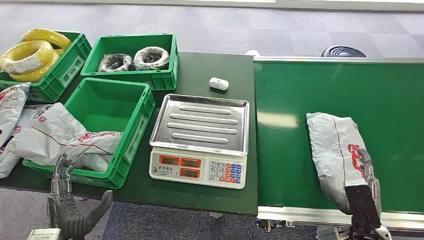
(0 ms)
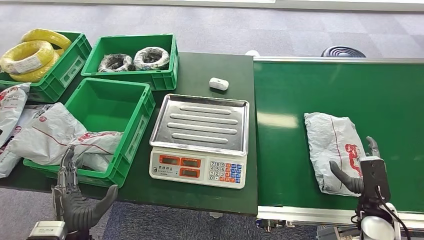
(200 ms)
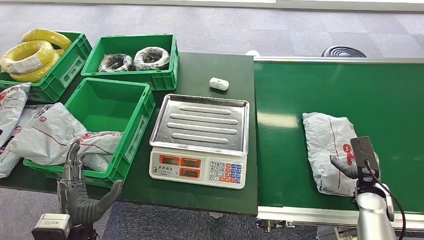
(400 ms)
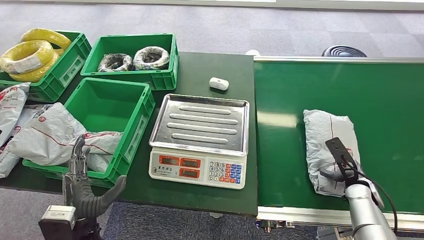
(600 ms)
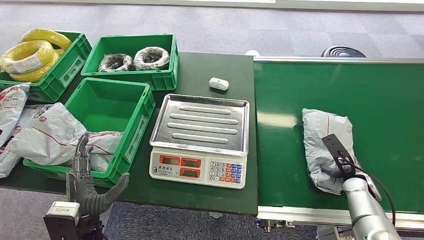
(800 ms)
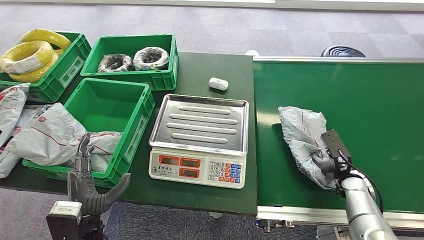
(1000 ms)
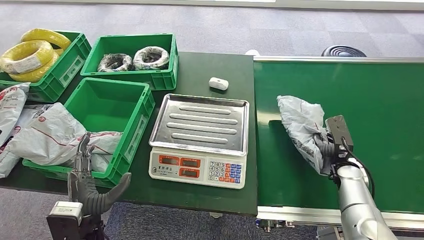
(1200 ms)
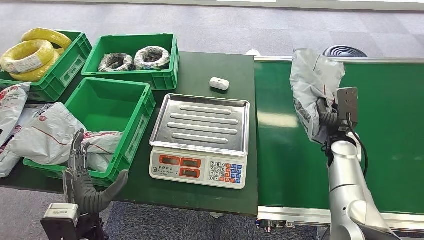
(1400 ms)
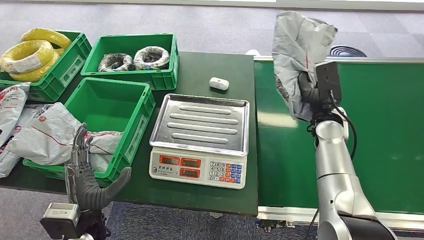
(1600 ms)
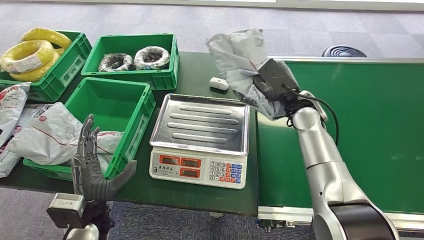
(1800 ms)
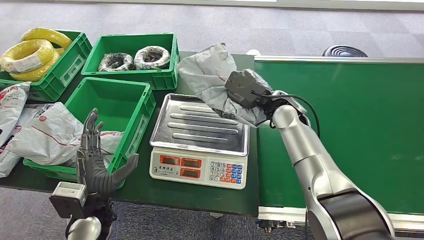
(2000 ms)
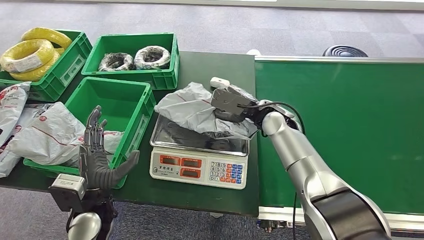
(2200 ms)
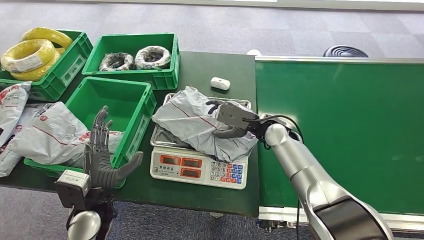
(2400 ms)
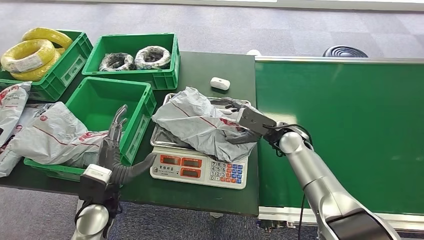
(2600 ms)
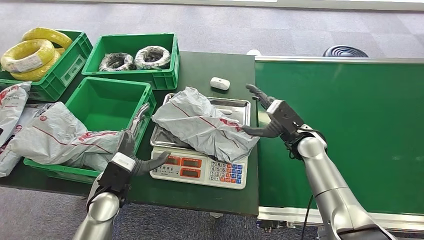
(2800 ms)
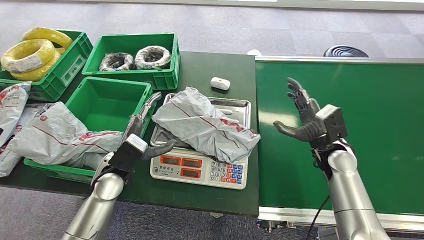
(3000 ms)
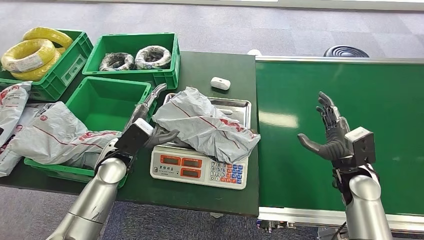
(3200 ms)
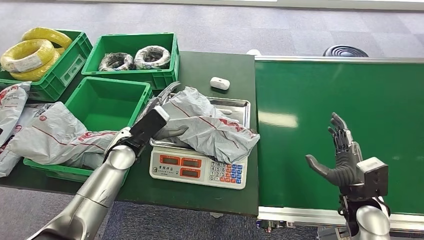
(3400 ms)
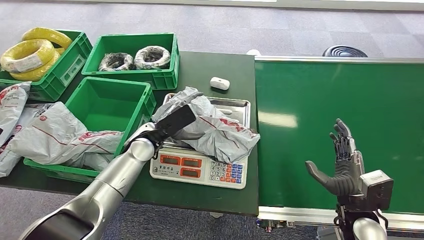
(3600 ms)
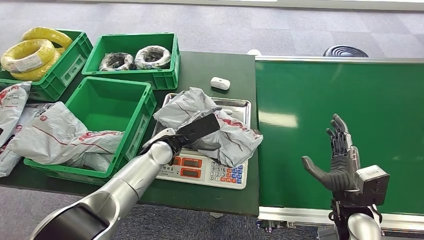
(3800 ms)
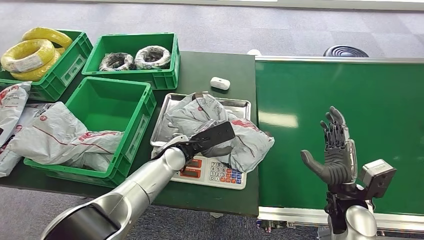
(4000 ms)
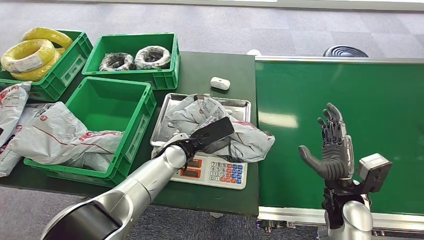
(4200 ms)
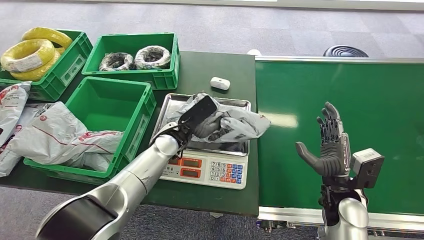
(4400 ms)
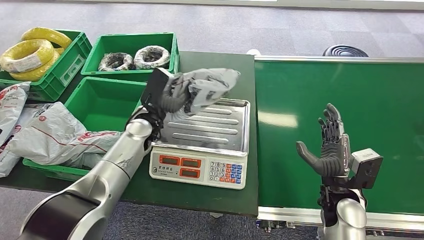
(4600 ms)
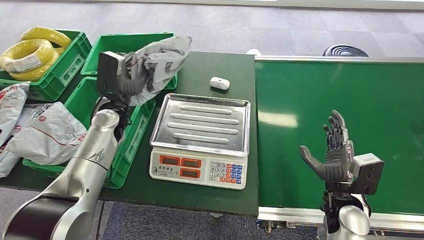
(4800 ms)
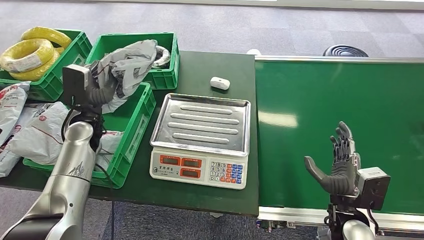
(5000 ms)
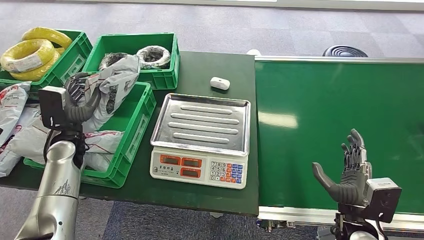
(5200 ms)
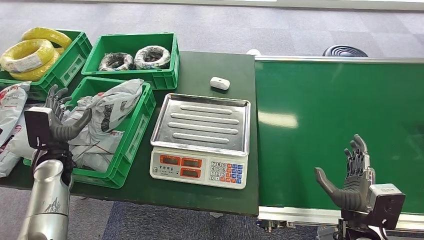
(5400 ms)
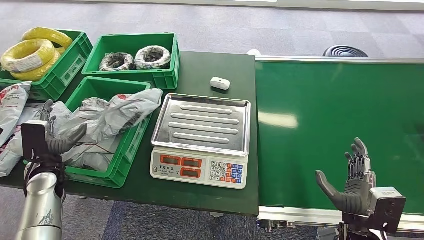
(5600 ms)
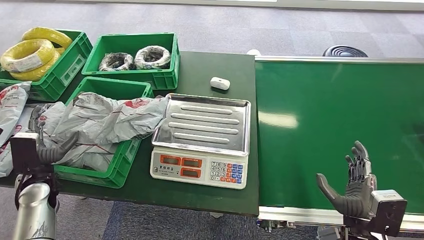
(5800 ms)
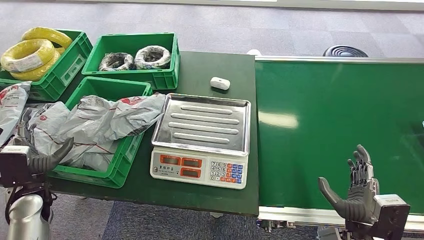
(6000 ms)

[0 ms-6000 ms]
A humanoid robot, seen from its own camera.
Step, 0 ms to 1200 ms: Pick up the package from the conveyor belt.
Step, 1400 ms to 2800 ms: Place the package onto the inbound machine.
Step, 3000 ms to 4800 ms: Pick up the package from the inbound machine.
Step, 5000 ms to 6000 ms: Place the package into the parcel locker.
3000 ms to 4400 ms: The right hand is displaced backward by roughly 10 cm, while the left hand moves to the right and forward, approximately 15 cm.

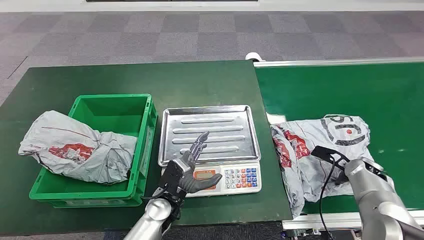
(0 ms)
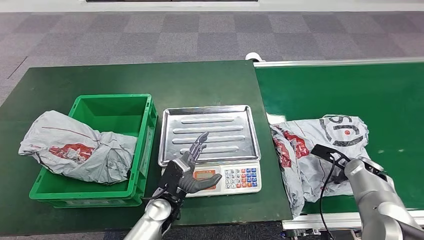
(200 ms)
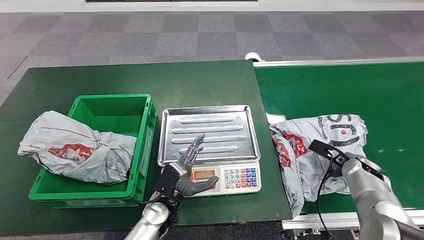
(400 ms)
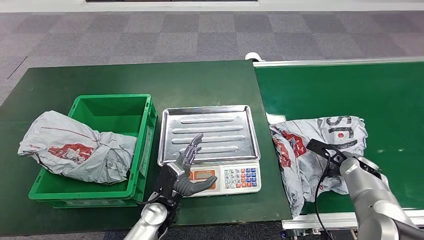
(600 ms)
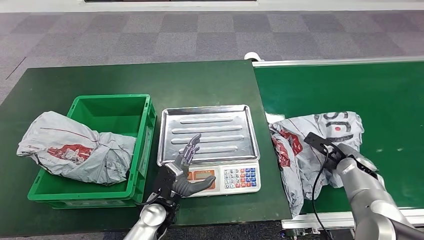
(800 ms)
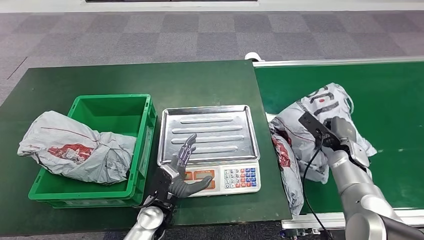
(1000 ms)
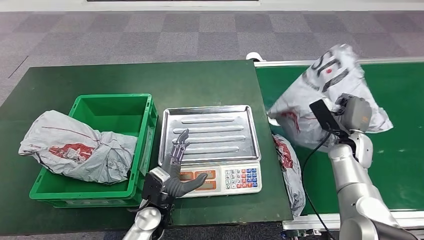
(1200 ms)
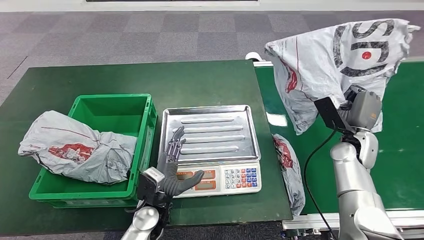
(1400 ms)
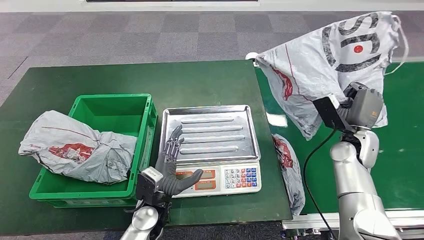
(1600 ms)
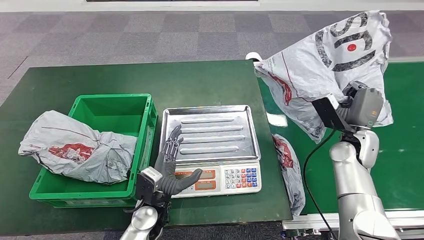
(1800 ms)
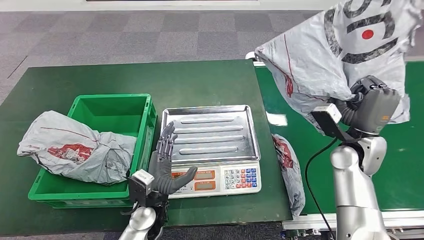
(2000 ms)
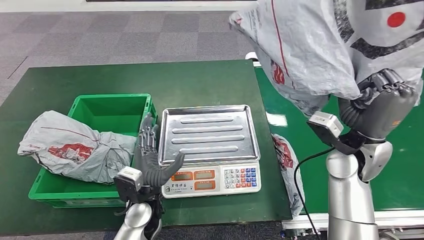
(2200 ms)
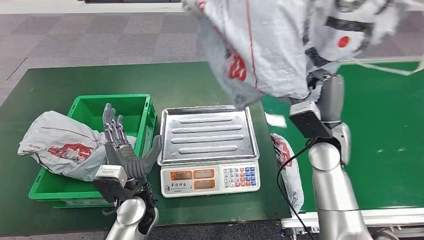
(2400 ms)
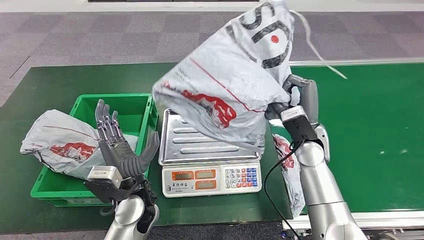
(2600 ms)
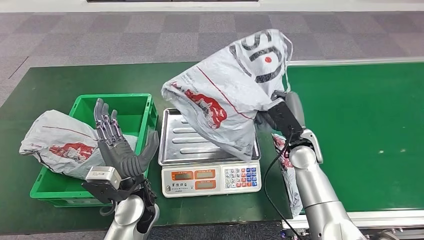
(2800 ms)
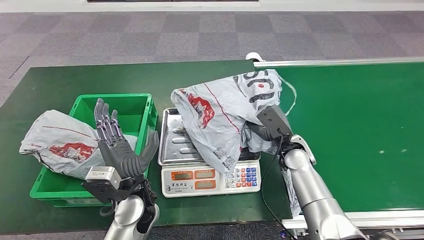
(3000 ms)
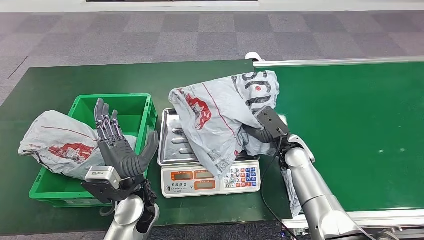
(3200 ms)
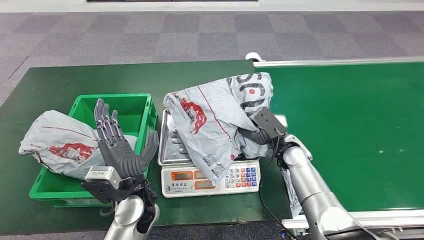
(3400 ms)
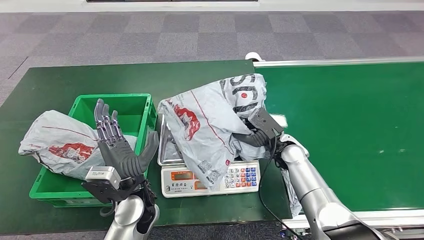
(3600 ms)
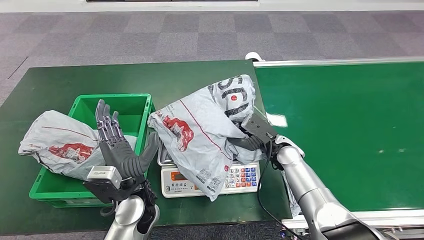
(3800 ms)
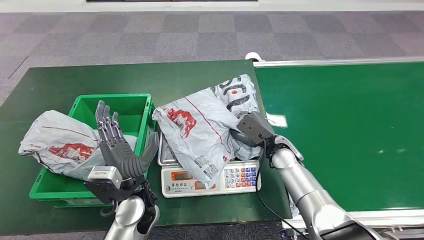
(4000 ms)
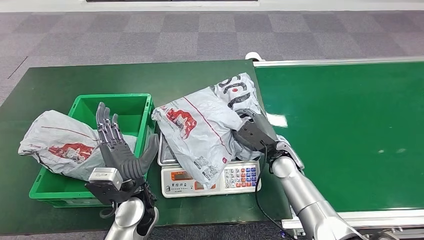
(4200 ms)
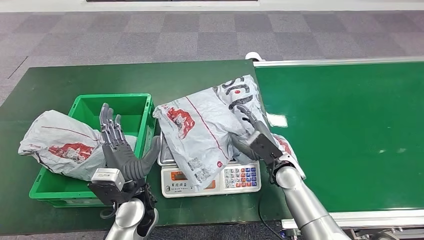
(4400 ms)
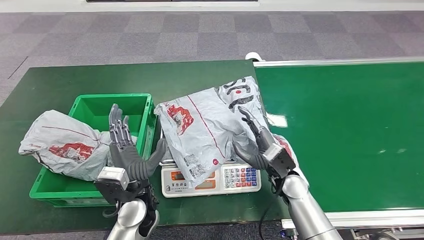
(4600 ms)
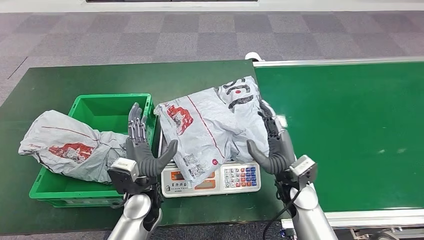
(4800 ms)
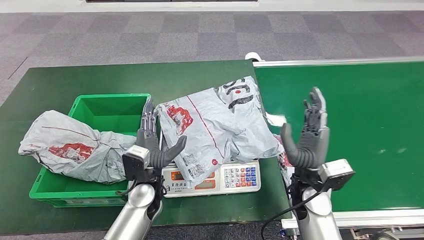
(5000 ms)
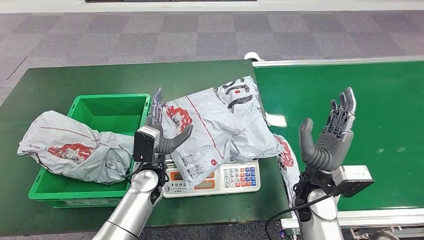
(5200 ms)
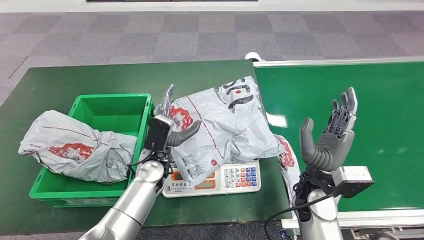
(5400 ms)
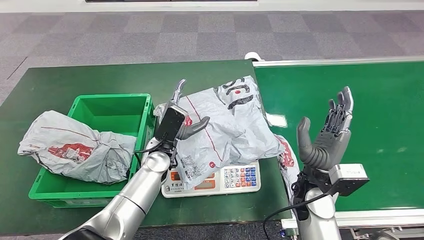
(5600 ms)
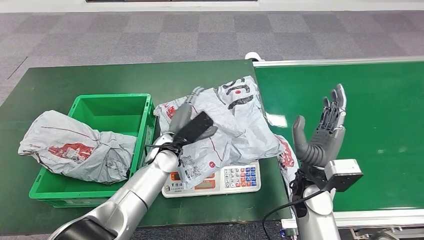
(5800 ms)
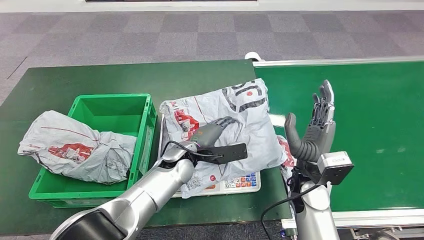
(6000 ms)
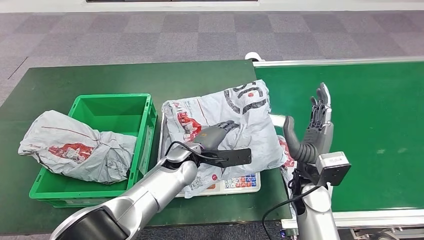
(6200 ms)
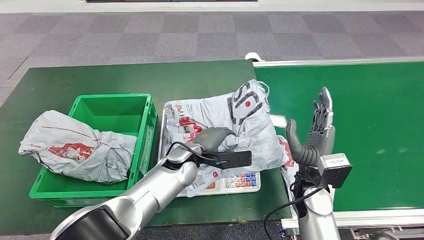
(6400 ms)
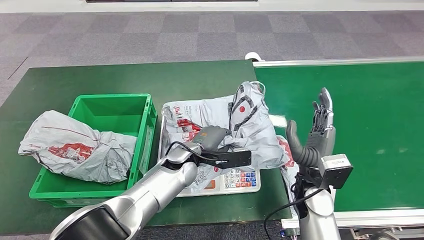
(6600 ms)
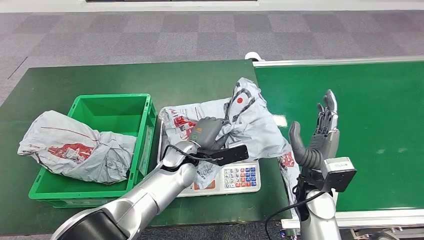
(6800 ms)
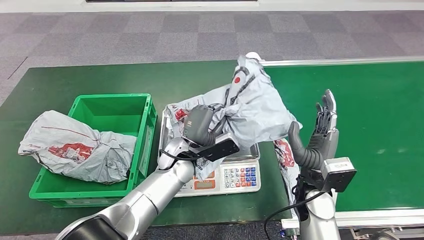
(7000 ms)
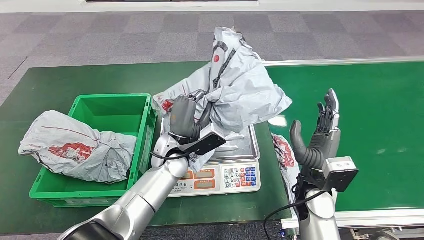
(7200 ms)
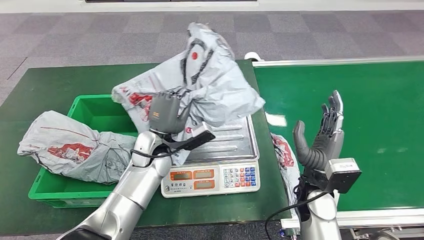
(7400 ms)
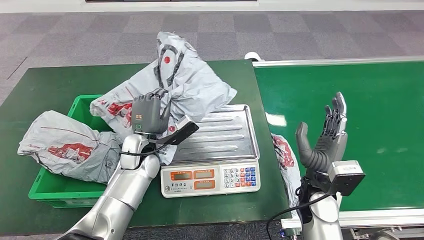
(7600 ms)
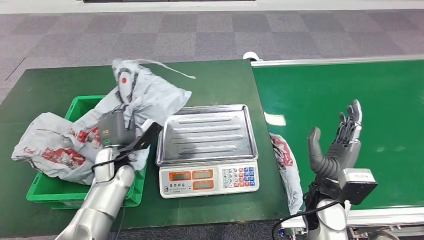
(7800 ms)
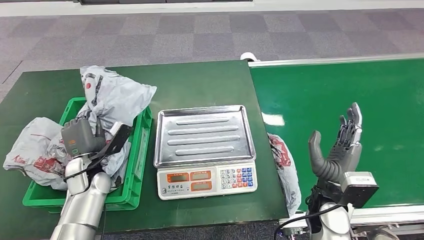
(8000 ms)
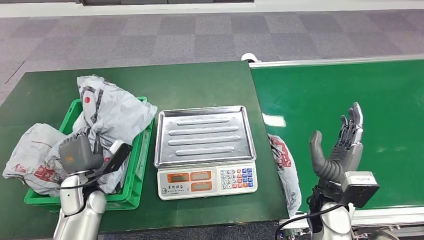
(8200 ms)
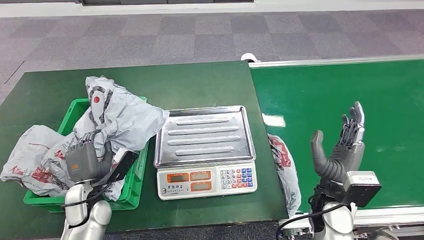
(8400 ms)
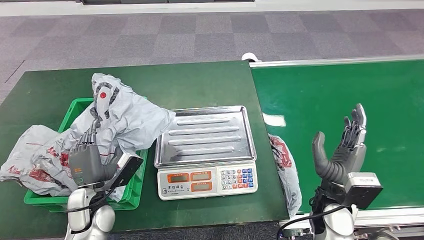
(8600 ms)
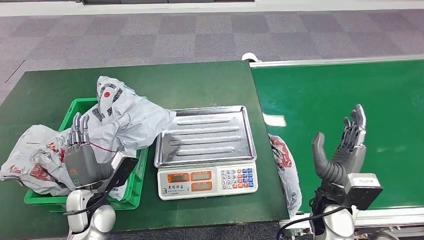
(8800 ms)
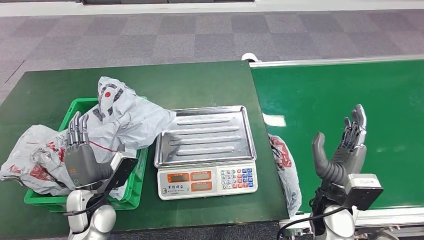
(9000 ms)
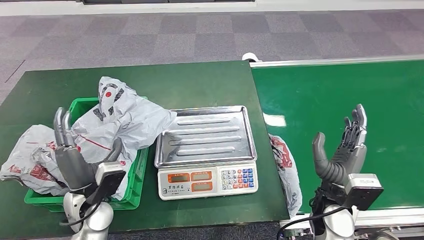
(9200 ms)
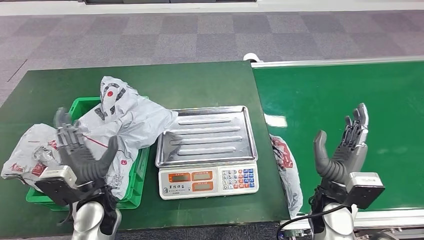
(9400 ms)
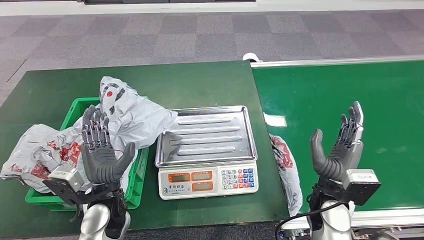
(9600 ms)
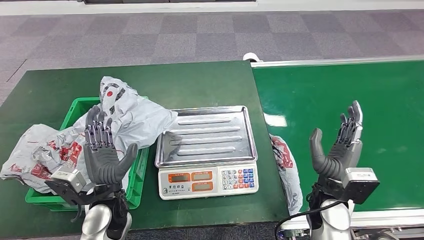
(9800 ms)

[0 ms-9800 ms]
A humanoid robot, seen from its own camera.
Step, 0 ms to 1600 ms: Pick up the package from the conveyor belt.
Step, 1800 ms to 5600 ms: Place the package onto the inbound machine.
Step, 6200 ms to 7600 ms: Pick up the package from the inbound machine.
Step, 7800 ms to 9800 ms: Place the package into the parcel locker.
2800 ms to 4200 ms: The right hand is displaced downward by about 5 cm.
4200 ms to 5600 ms: The left hand goes about 10 cm forward. The right hand travels backward and upward by about 10 cm.
8400 ms to 9800 ms: The left hand travels to the right by some 10 cm.
